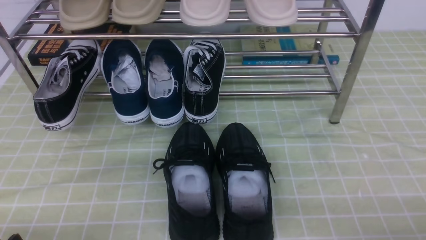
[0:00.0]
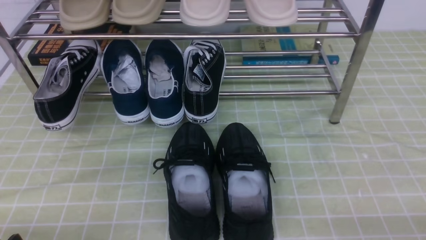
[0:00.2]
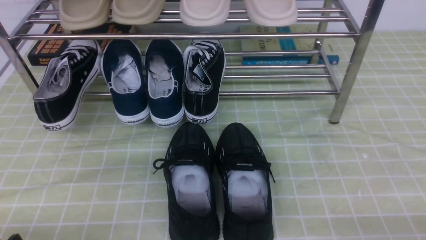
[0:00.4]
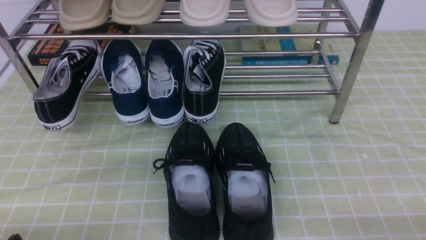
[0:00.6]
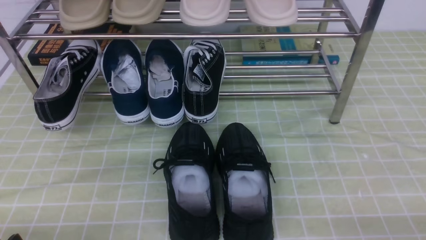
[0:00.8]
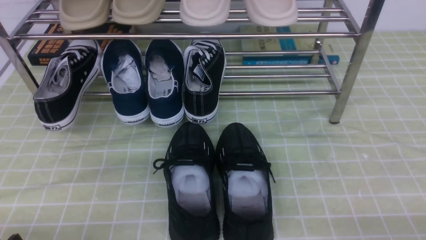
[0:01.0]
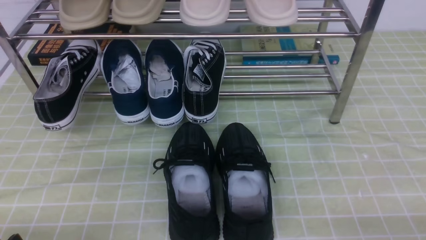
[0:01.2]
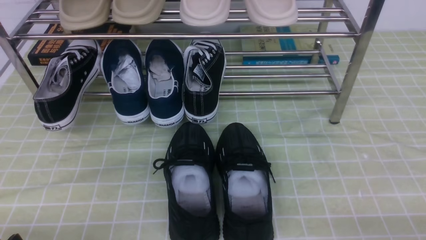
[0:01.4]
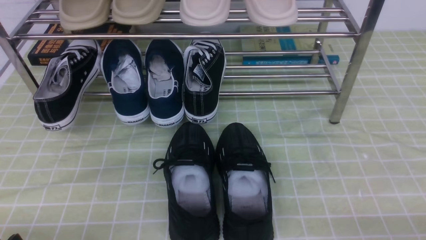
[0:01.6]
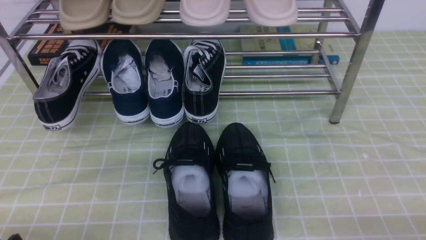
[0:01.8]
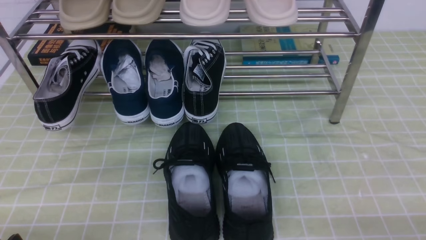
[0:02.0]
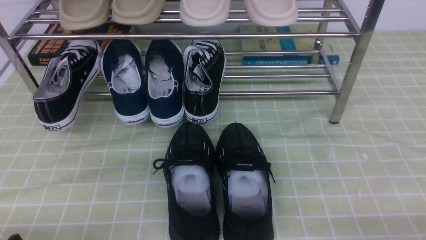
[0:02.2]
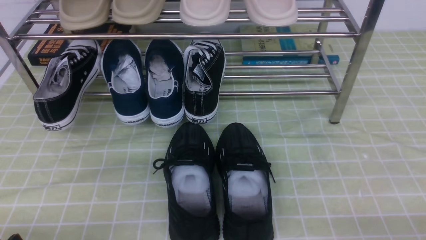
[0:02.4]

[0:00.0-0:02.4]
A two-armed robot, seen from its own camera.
0:01.2 to 0:02.4: Both grippers stay put.
